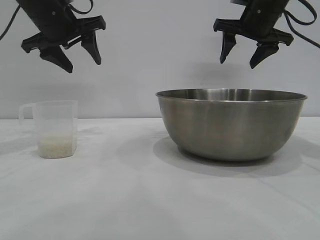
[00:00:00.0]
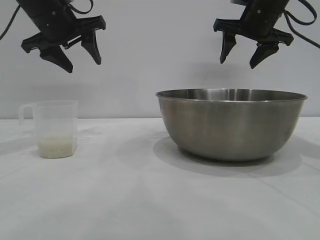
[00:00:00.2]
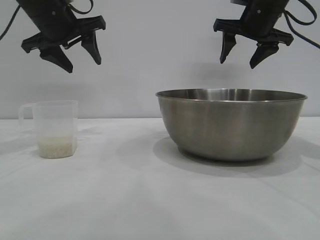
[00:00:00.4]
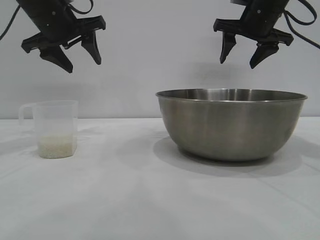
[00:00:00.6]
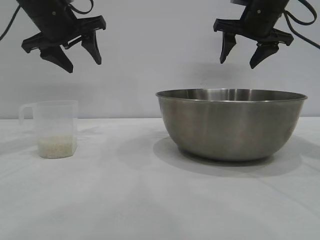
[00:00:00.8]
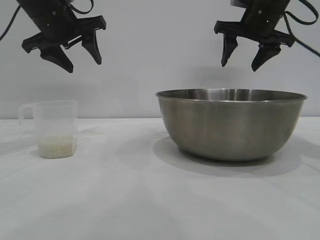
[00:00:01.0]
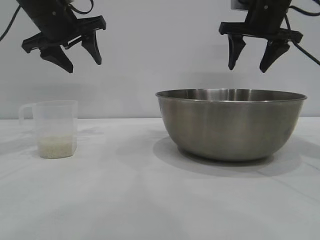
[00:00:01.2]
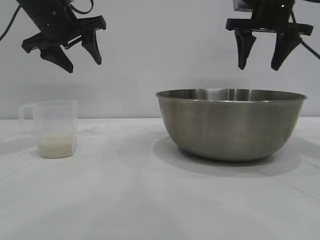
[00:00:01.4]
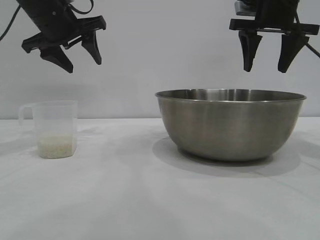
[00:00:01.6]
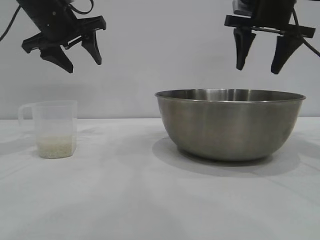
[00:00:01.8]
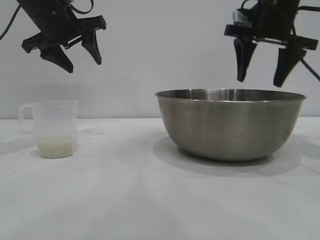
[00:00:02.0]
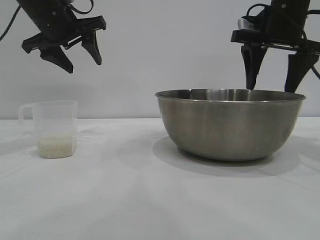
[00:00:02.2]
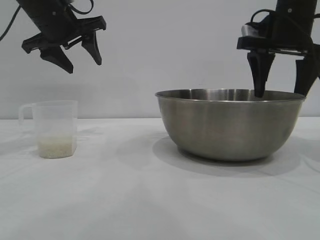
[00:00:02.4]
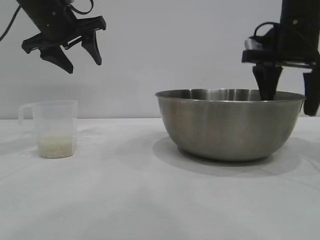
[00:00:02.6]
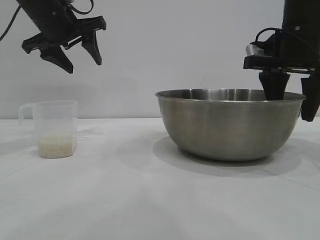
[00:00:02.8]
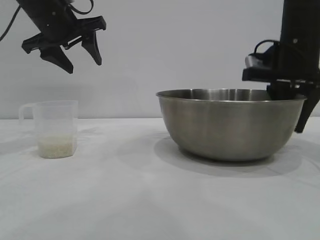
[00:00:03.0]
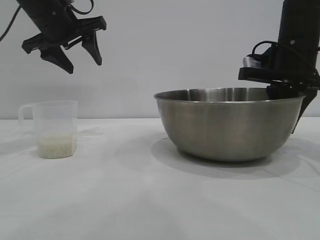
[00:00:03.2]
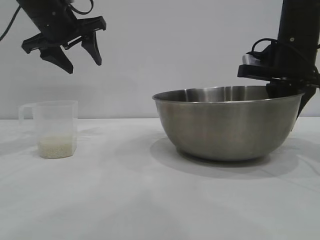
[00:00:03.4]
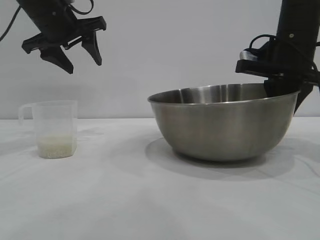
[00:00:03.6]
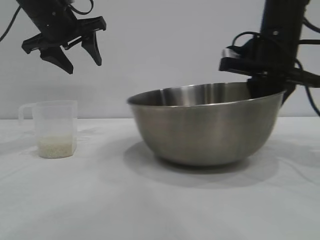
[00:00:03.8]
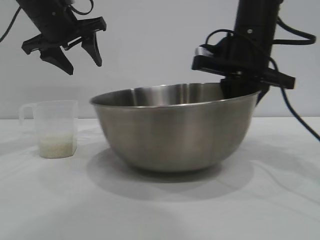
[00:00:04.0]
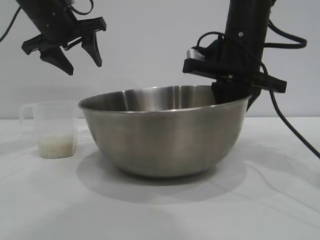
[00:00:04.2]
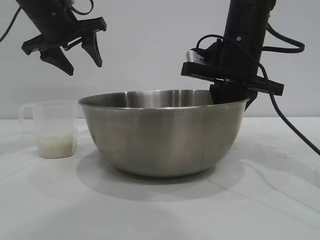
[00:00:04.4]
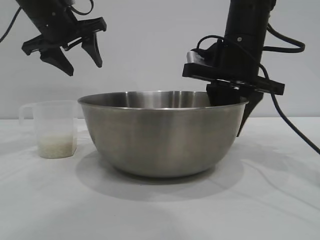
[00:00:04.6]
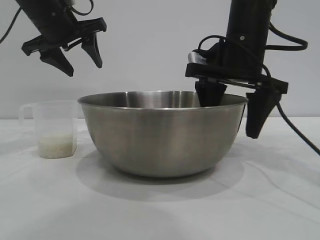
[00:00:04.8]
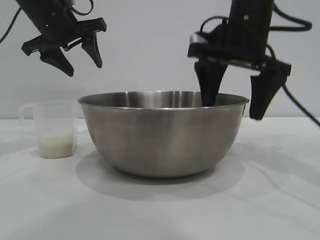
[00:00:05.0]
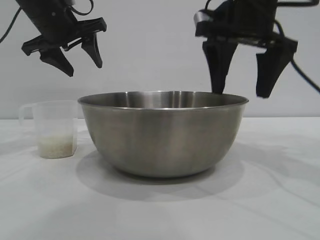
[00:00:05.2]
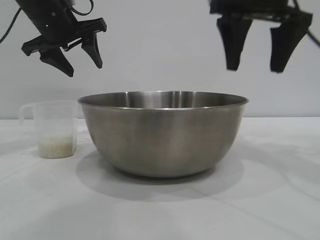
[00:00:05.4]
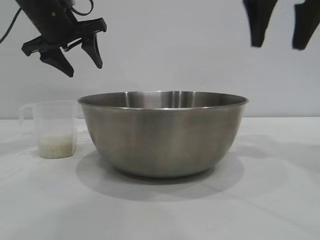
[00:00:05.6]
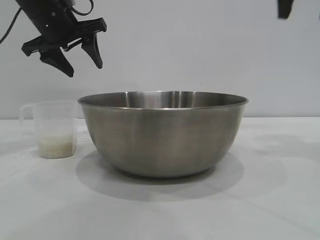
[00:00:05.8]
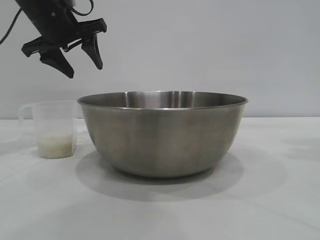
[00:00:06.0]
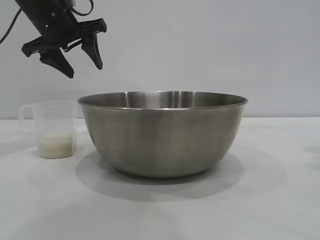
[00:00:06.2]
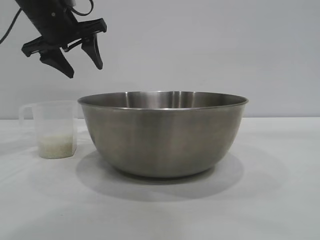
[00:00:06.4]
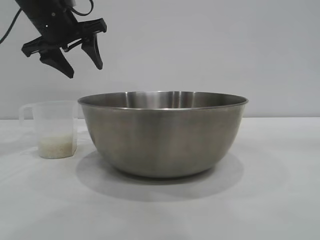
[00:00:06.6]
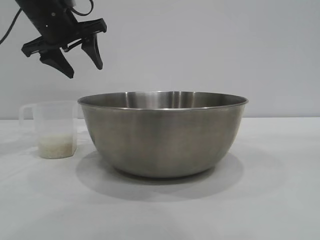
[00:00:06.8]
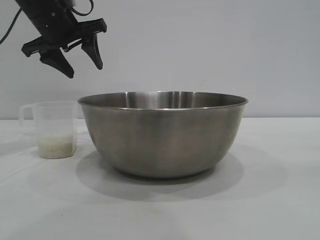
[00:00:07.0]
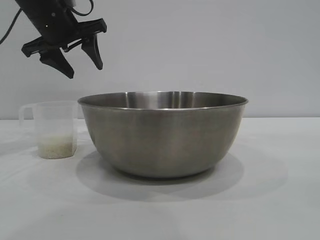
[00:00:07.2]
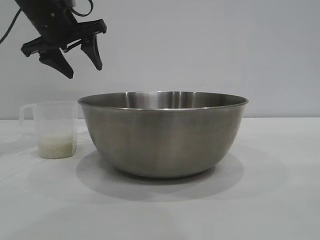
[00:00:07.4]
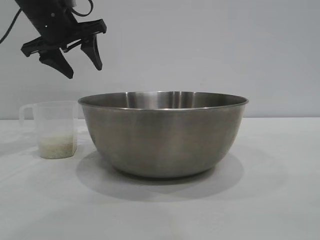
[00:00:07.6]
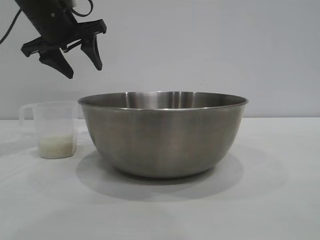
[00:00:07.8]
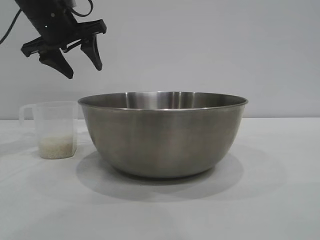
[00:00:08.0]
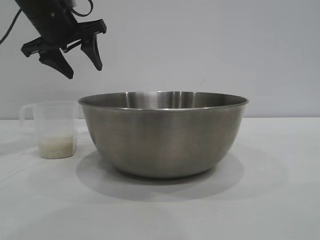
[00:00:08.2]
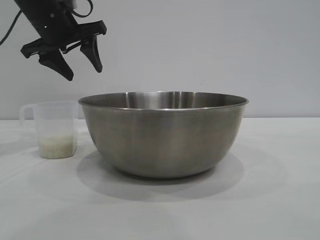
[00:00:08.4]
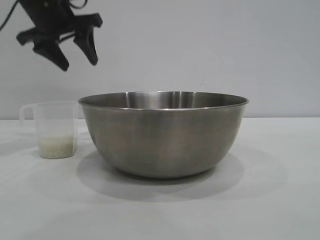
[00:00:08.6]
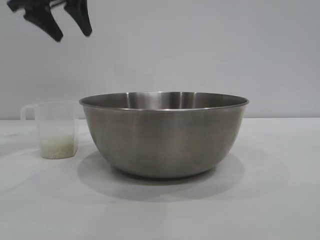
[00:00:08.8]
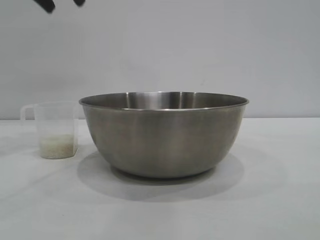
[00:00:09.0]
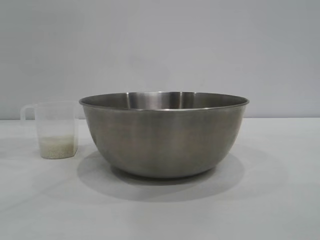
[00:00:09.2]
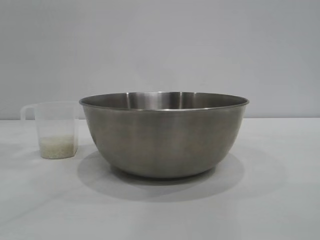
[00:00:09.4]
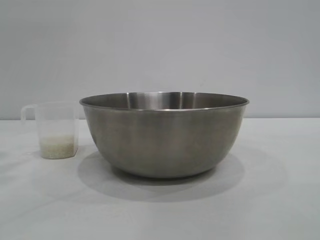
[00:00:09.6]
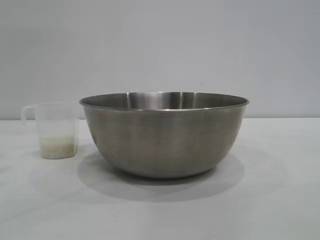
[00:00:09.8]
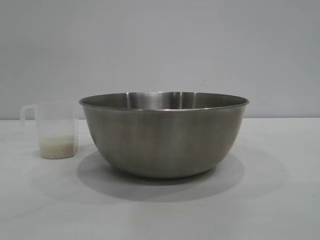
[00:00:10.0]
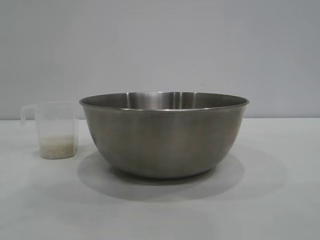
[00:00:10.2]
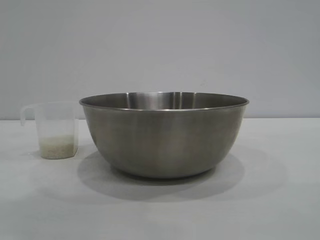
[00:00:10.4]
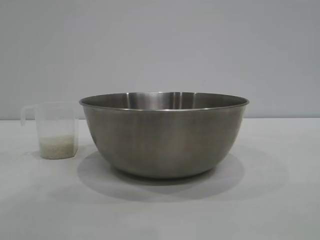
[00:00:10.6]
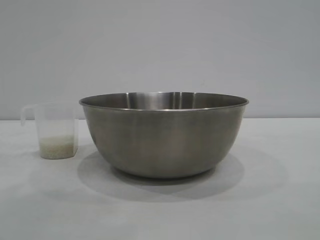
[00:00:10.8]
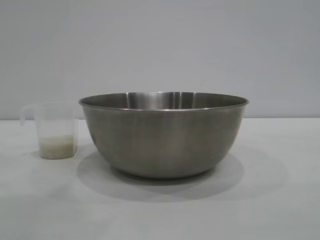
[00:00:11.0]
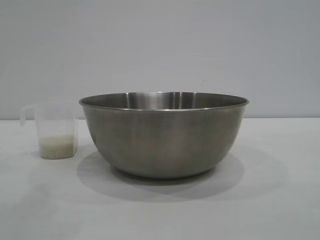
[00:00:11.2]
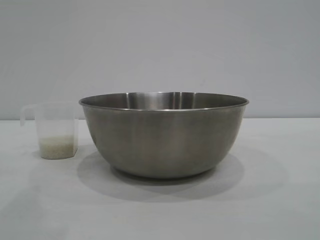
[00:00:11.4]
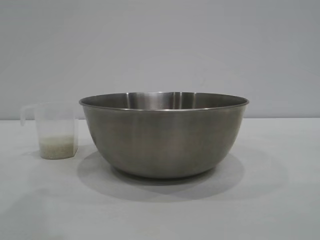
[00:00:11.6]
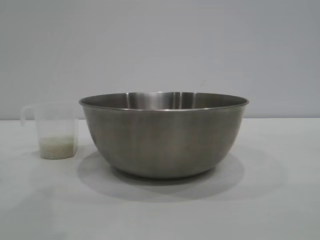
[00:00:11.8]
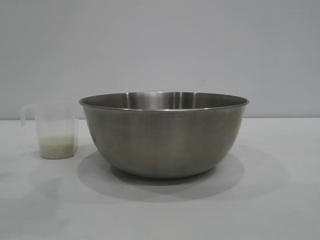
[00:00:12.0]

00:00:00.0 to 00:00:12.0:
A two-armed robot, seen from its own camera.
Task of the whole recording: the right gripper grasp the rice container and place it in the center of the table, the left gripper grasp the rice scoop and pour the rice into the rice container.
Step, 00:00:00.0 to 00:00:05.2: Move the bowl to the center of view with the right gripper.

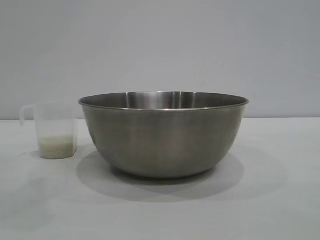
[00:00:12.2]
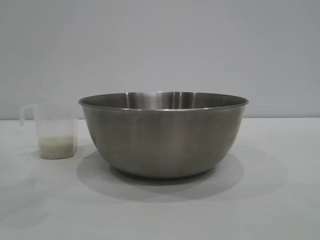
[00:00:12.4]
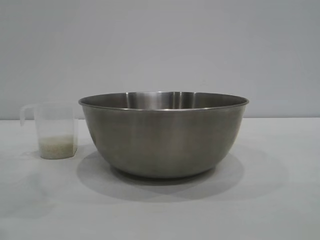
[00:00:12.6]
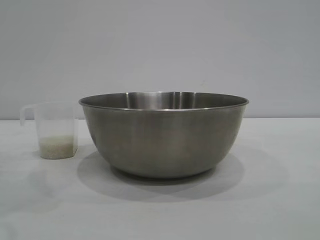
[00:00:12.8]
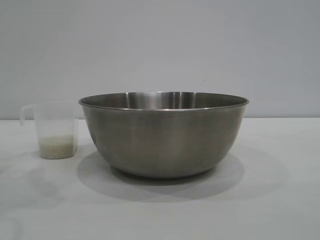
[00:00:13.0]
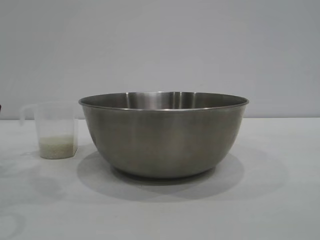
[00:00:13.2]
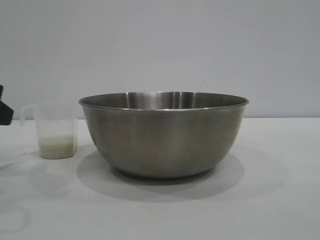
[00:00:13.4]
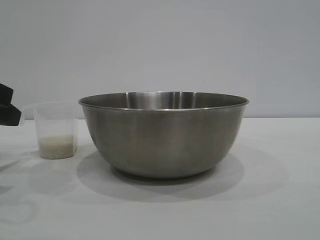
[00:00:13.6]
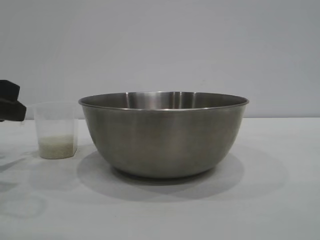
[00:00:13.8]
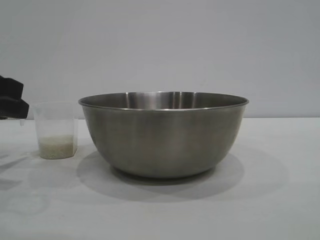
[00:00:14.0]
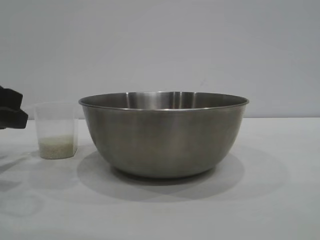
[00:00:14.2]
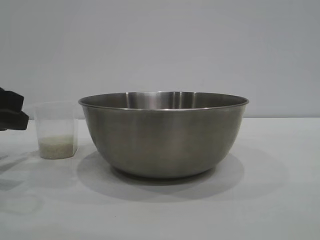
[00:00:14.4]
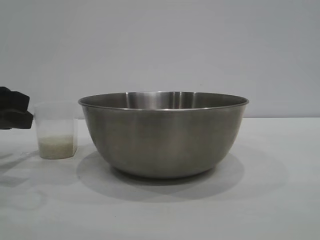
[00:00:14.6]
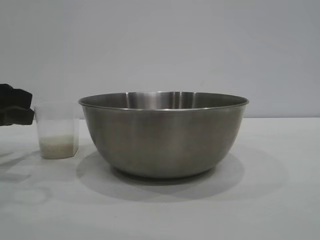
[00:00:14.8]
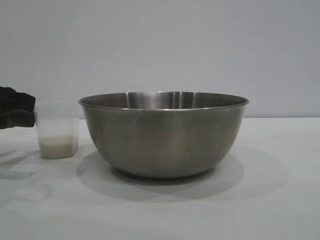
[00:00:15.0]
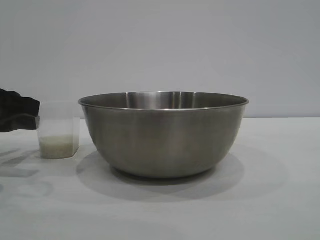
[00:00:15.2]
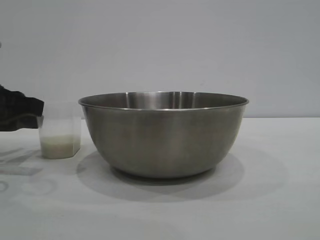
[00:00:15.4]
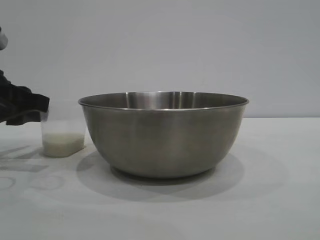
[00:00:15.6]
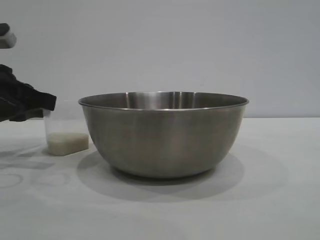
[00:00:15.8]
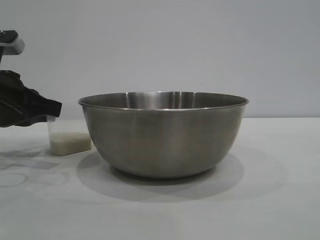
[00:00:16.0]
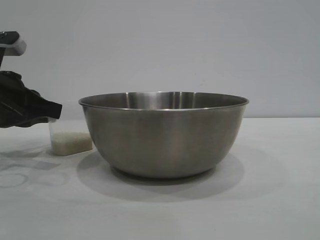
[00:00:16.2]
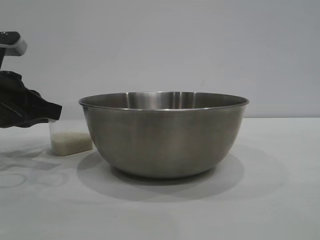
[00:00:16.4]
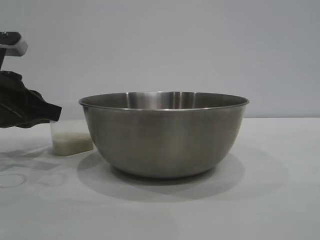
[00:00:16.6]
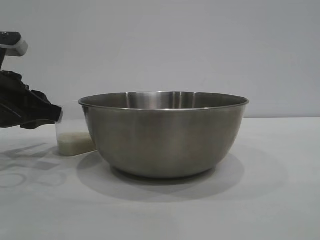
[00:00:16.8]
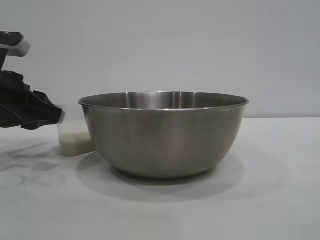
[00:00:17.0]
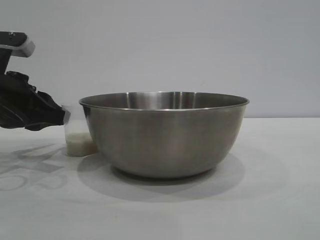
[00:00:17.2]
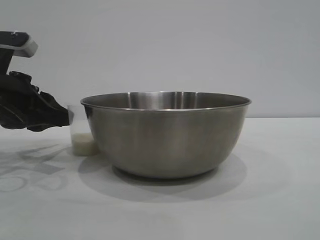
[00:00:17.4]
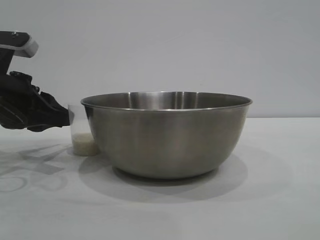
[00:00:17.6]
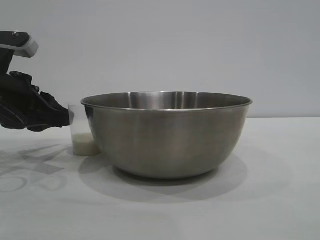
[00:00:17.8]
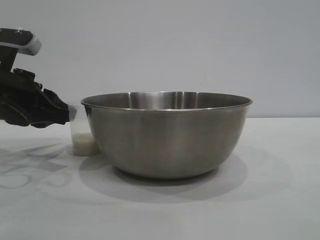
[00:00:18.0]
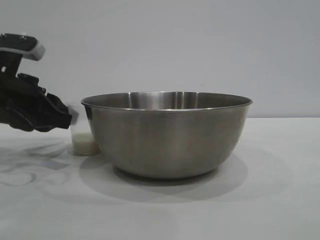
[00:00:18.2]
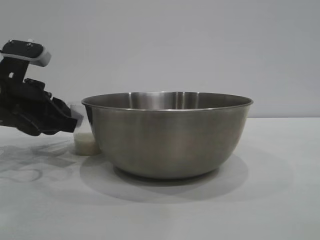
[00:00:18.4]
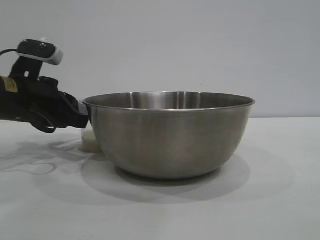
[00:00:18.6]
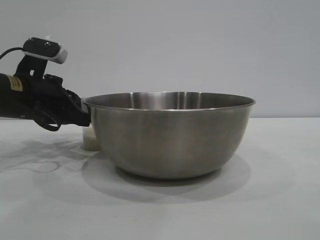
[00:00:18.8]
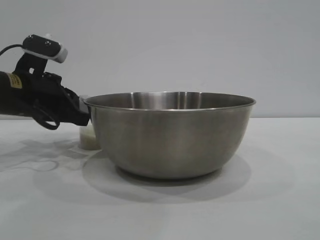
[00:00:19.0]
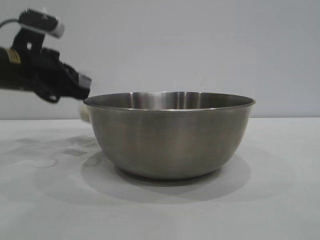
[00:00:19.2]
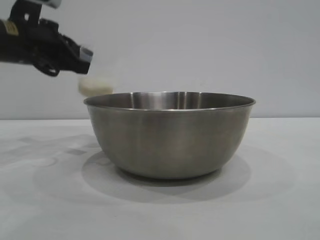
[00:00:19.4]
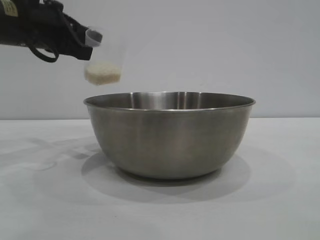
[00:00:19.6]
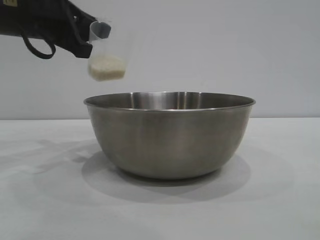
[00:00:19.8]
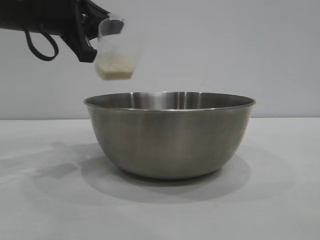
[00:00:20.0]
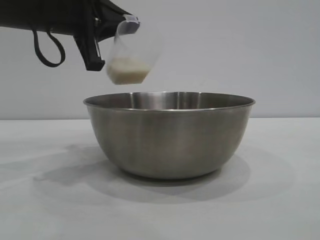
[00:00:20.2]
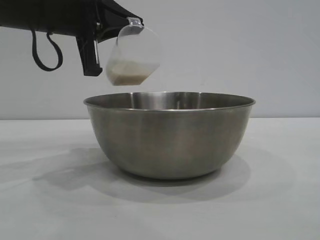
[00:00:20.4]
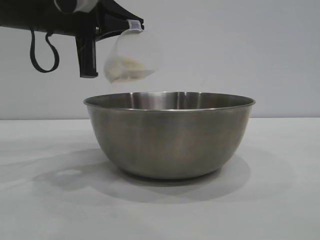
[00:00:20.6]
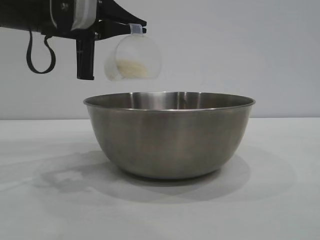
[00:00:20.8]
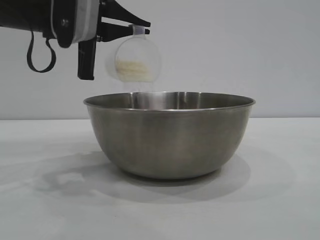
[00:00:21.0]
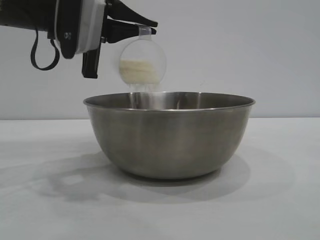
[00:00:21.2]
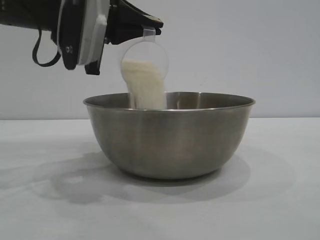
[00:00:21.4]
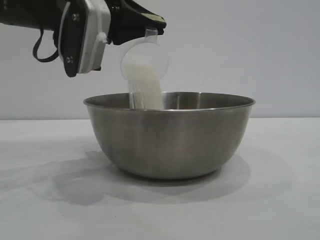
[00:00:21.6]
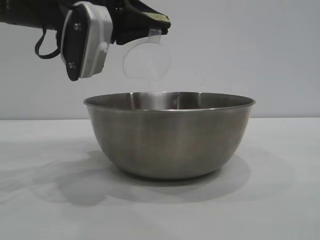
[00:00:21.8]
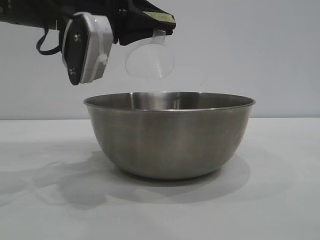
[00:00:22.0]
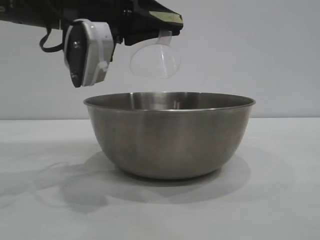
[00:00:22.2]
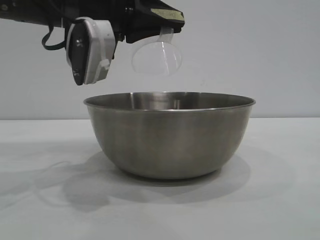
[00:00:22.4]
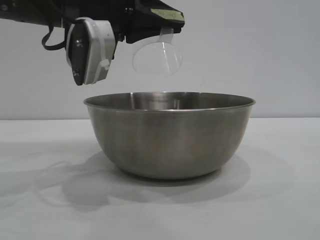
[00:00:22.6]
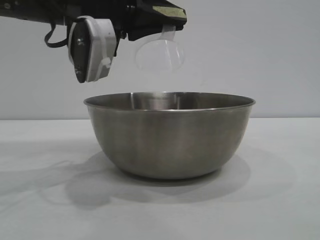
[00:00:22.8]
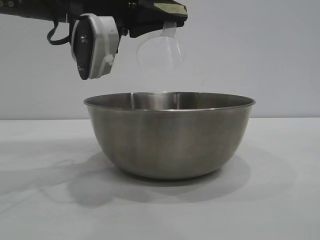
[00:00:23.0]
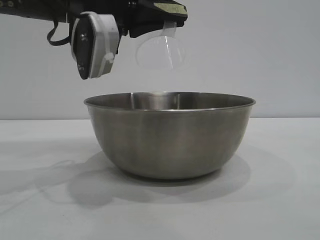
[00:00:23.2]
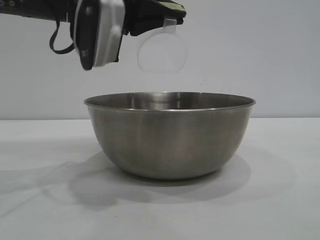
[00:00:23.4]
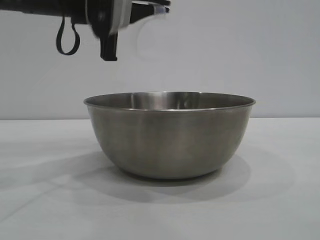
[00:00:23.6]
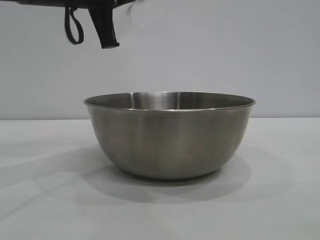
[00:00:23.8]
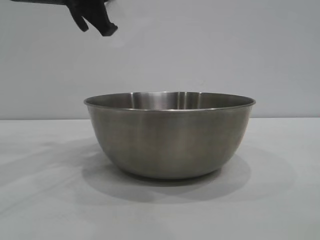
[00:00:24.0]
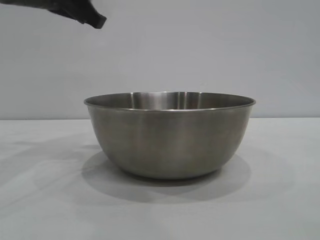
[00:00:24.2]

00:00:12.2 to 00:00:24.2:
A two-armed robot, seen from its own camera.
Task of the whole recording: the right gripper grasp the rice container and place it in the center of the table, the left gripper grasp the rice scoop and pour the rice into the rice container.
Step, 00:00:12.2 to 00:00:19.2: Pick up the cup with rice in it with the left gripper.
Step, 00:00:19.4 to 00:00:23.6: Pour the rice from the cup into the bowl with the left gripper.
